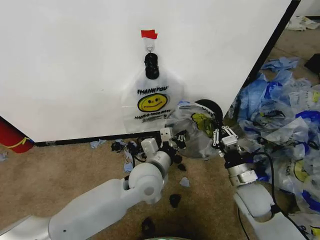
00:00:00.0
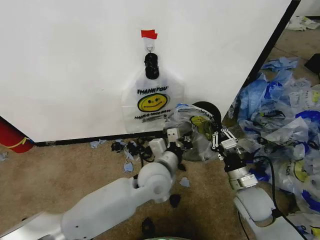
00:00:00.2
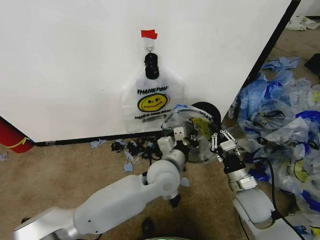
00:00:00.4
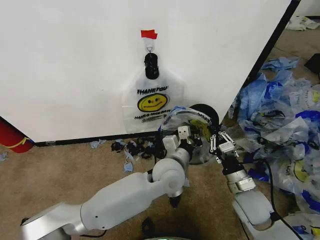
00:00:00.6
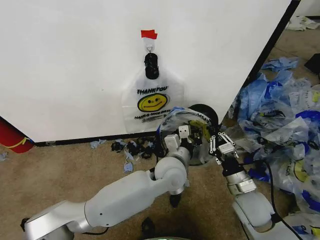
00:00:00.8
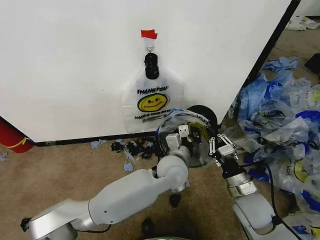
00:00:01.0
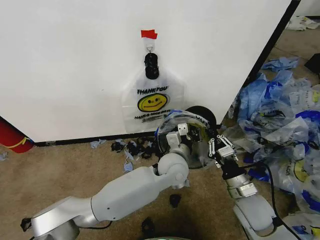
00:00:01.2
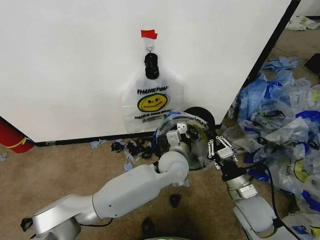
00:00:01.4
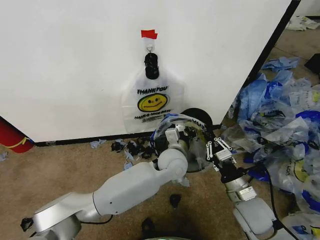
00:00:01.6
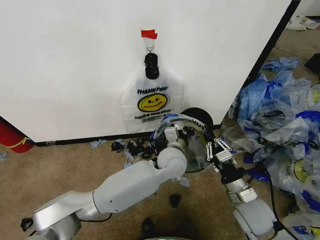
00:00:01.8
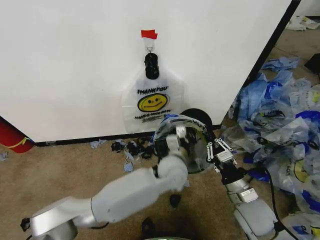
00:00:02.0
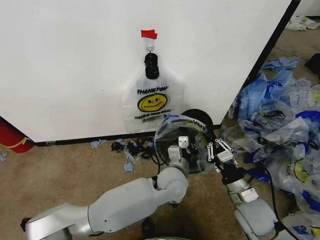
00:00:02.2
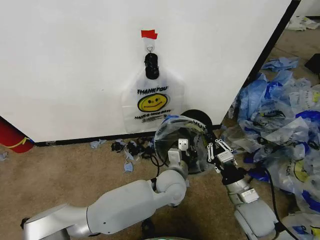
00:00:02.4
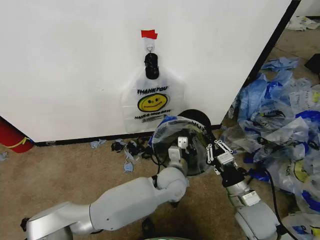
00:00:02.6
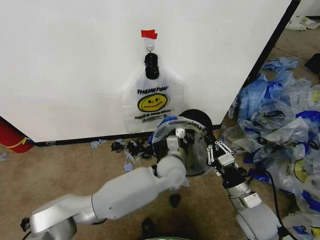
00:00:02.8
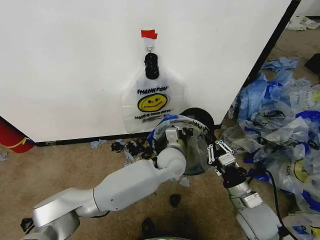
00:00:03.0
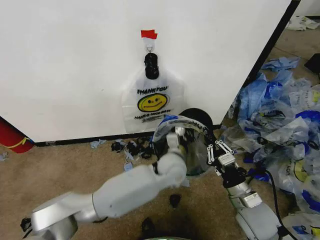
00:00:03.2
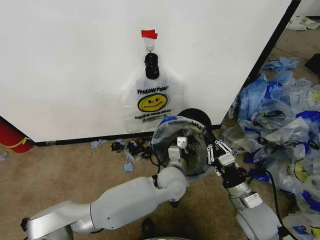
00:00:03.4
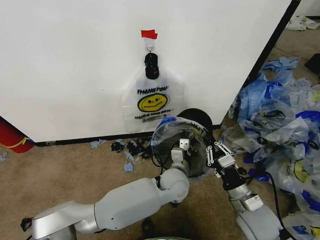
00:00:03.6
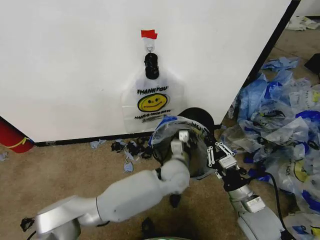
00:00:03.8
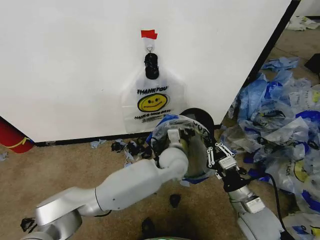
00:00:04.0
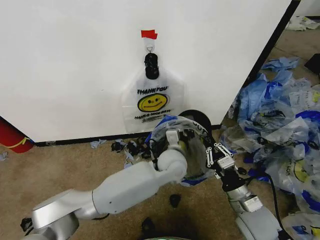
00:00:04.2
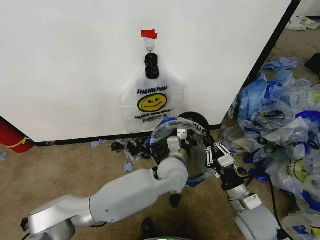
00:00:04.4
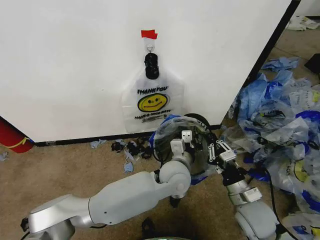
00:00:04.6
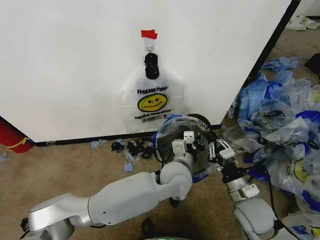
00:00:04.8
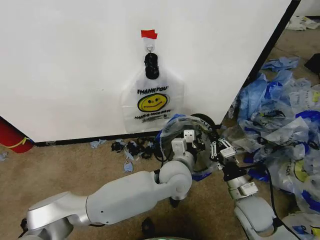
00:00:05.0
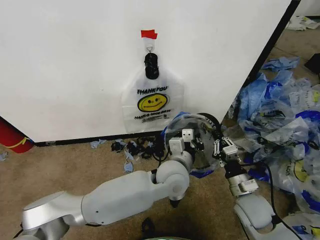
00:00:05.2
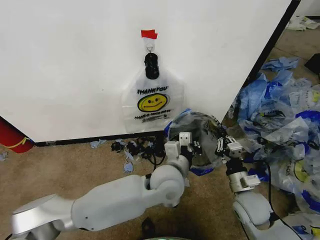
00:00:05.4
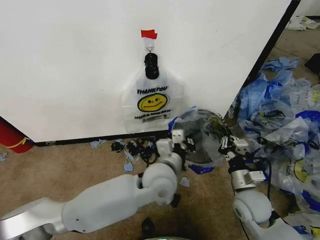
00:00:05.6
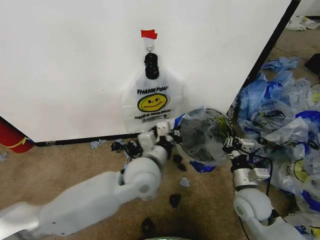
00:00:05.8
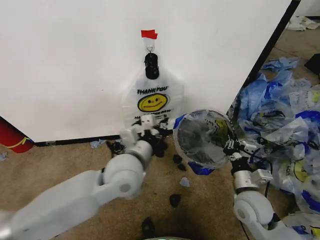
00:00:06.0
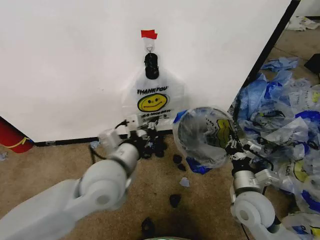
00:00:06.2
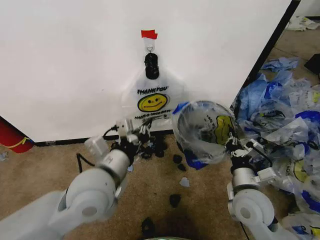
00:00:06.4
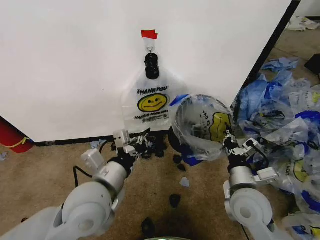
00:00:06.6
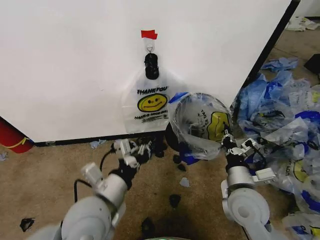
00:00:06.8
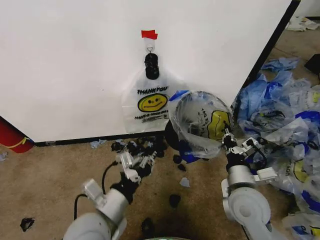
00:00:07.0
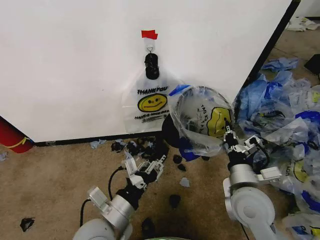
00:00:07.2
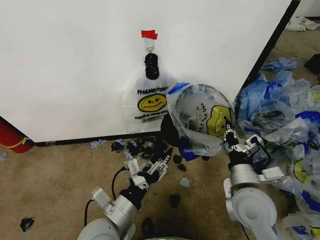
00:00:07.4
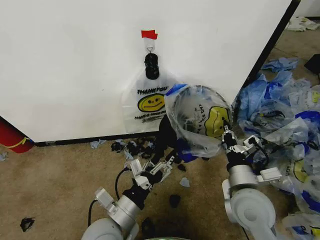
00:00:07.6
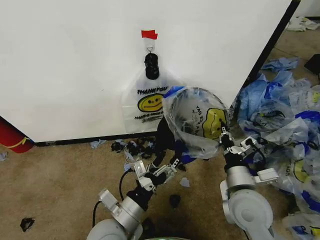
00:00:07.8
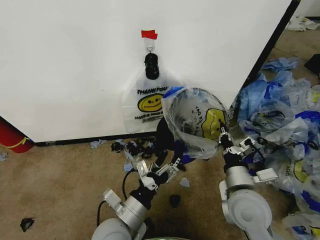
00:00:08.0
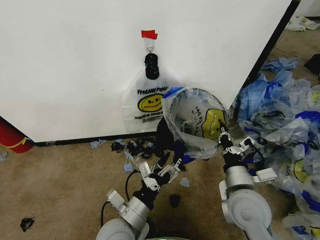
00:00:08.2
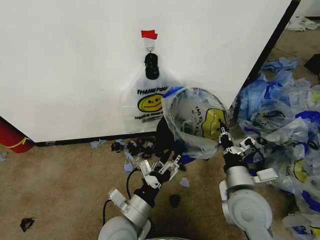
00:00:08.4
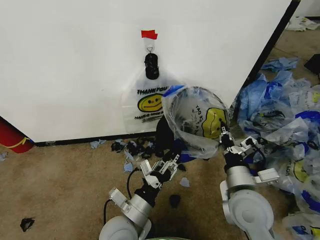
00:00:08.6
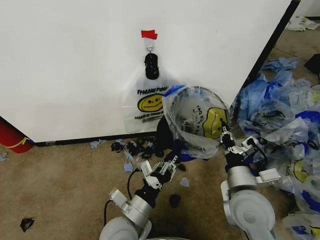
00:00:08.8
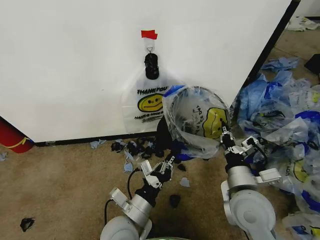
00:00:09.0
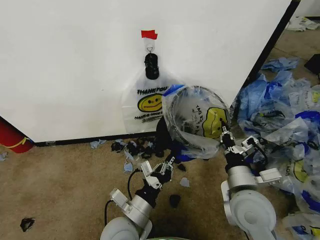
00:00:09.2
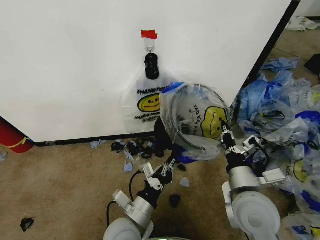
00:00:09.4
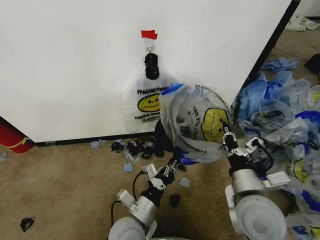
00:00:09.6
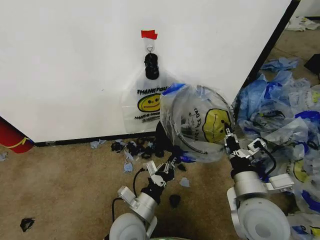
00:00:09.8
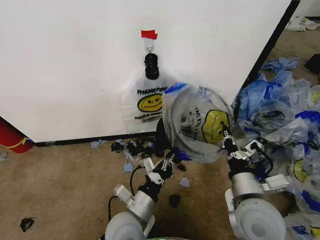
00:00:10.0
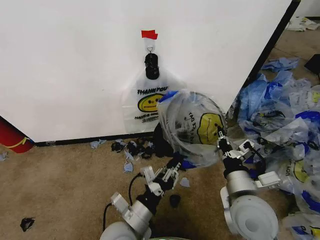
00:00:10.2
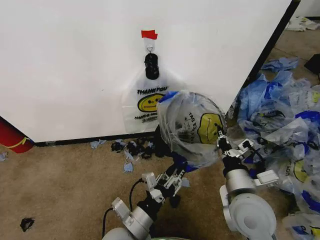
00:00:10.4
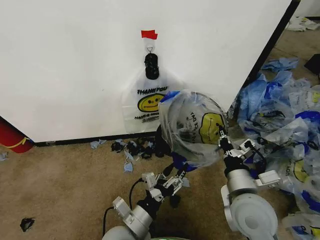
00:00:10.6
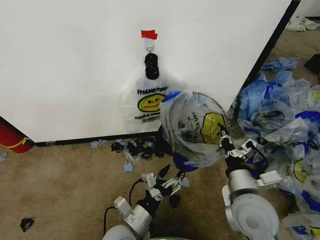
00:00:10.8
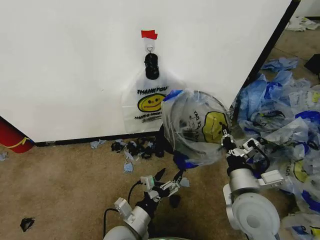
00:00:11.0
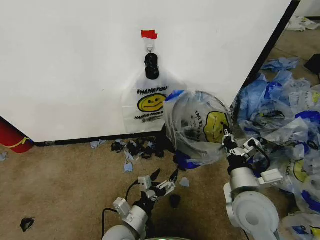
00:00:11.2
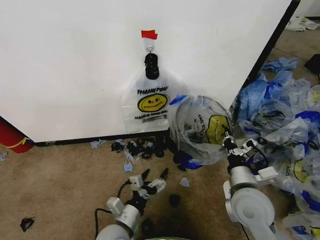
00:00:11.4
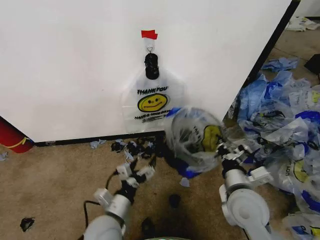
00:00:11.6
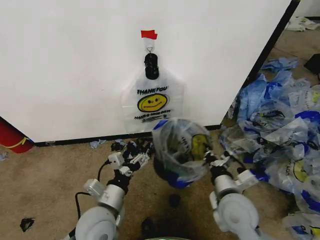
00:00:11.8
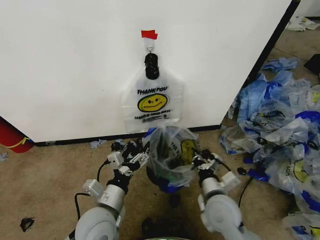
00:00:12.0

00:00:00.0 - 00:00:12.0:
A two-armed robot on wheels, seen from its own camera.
Task of the whole recording: Pick up the garbage bag from the wall and place it over the trash bin.
00:00:00.0 - 00:00:01.6: The left gripper travels to the right and forward by approximately 10 cm.
00:00:04.4 - 00:00:06.0: The left gripper shifts roughly 15 cm to the left and upward.
00:00:06.0 - 00:00:07.6: The left gripper moves backward and downward, some 15 cm, and opens; the right gripper heads upward, covering approximately 10 cm.
00:00:07.6 - 00:00:09.0: The left gripper closes its fingers.
00:00:09.0 - 00:00:10.4: The left gripper opens its fingers.
00:00:10.4 - 00:00:12.0: The right gripper is displaced downward by roughly 10 cm. Meanwhile the left gripper heads to the left, covering some 5 cm, and opens.

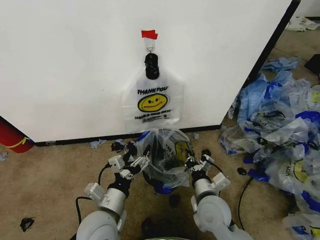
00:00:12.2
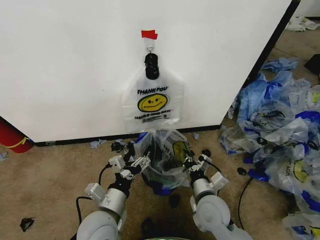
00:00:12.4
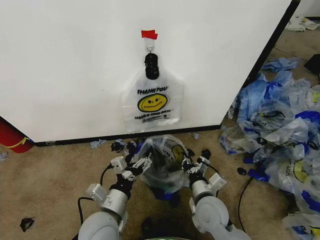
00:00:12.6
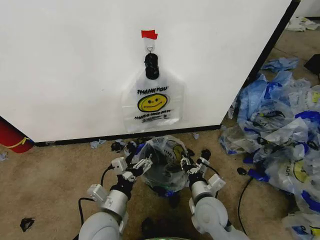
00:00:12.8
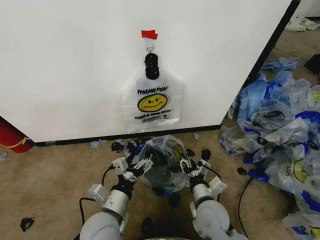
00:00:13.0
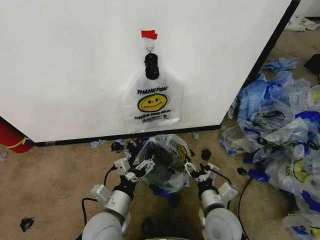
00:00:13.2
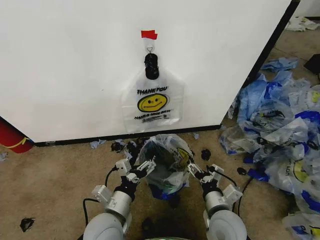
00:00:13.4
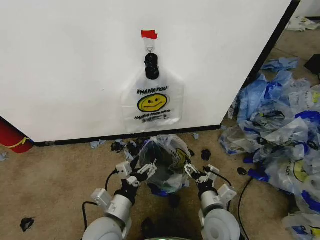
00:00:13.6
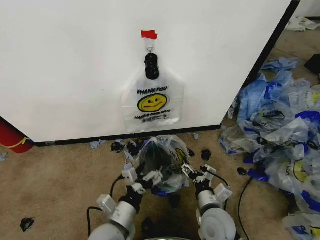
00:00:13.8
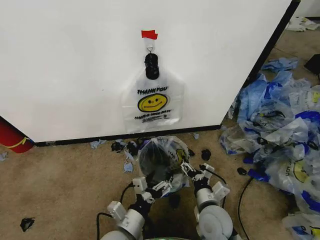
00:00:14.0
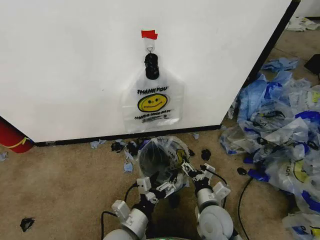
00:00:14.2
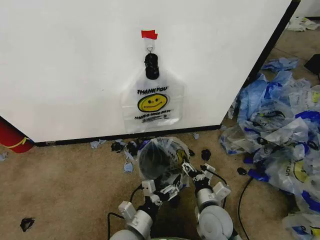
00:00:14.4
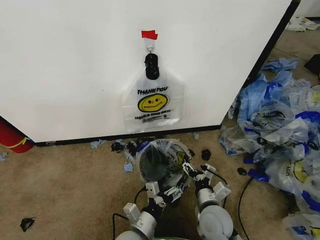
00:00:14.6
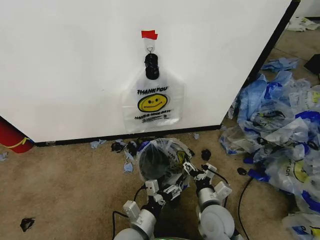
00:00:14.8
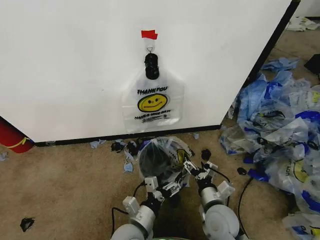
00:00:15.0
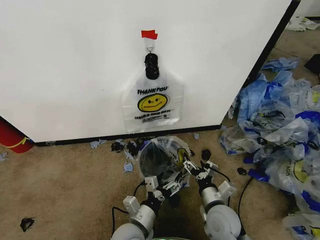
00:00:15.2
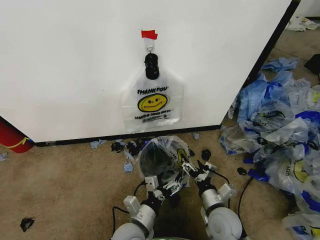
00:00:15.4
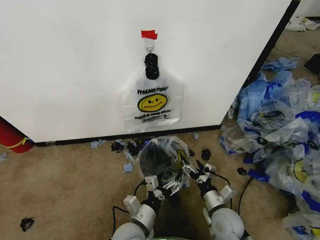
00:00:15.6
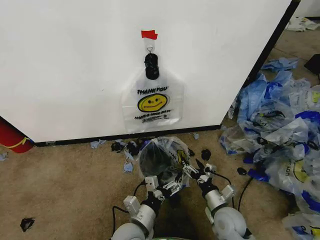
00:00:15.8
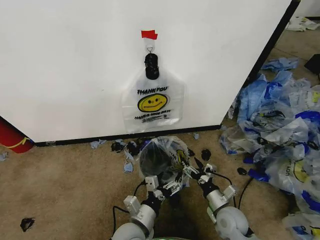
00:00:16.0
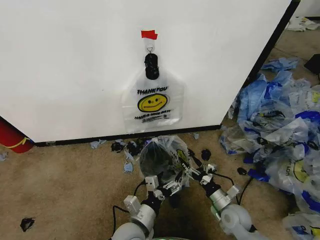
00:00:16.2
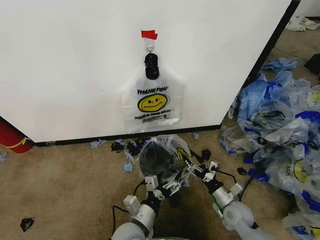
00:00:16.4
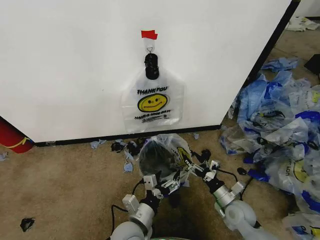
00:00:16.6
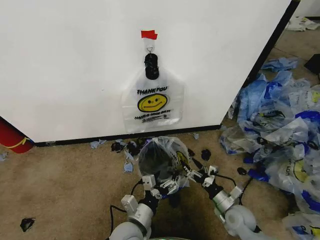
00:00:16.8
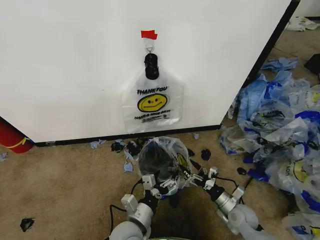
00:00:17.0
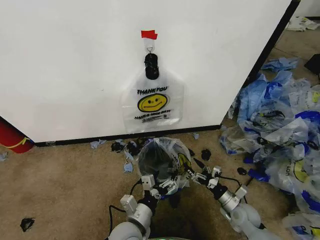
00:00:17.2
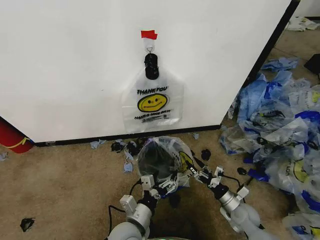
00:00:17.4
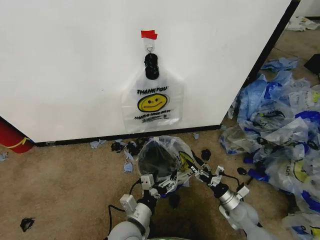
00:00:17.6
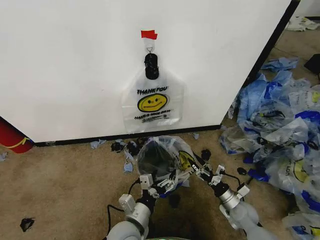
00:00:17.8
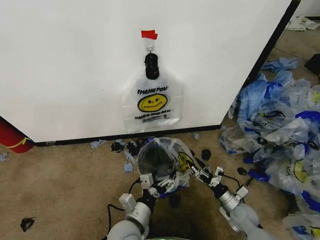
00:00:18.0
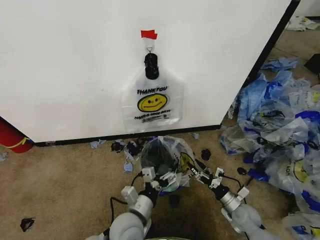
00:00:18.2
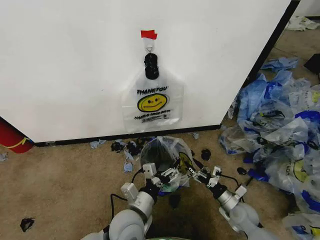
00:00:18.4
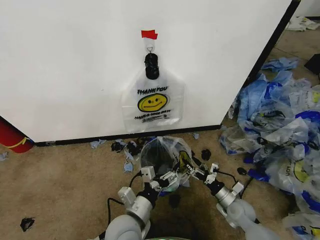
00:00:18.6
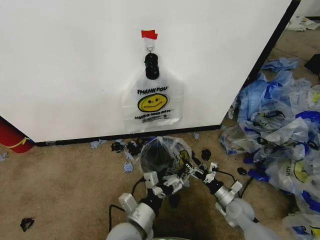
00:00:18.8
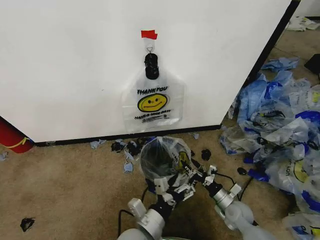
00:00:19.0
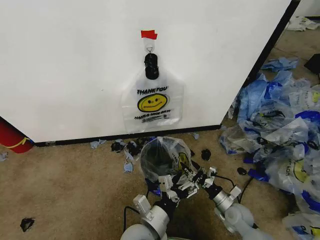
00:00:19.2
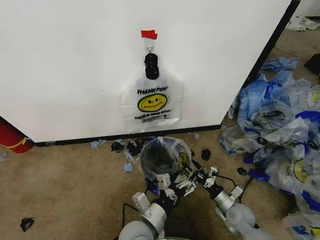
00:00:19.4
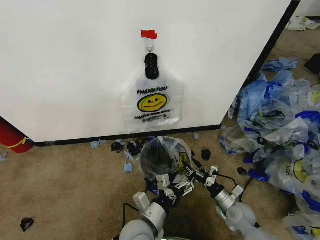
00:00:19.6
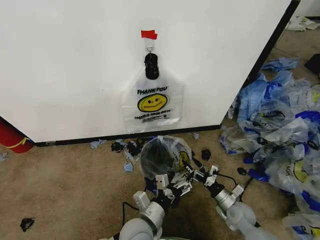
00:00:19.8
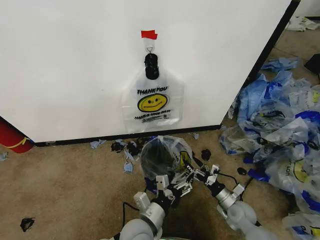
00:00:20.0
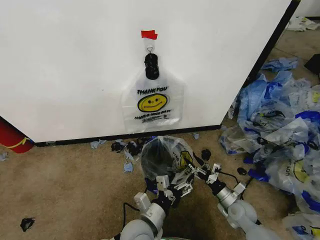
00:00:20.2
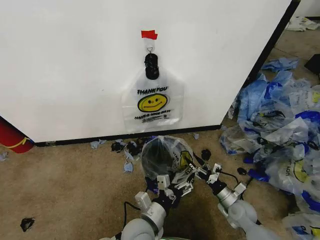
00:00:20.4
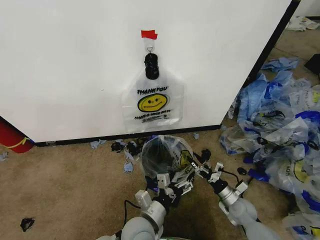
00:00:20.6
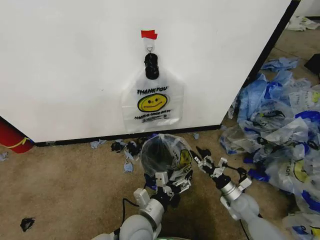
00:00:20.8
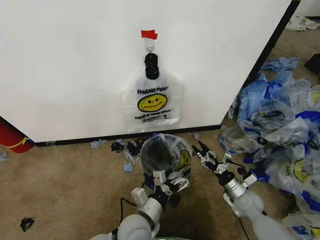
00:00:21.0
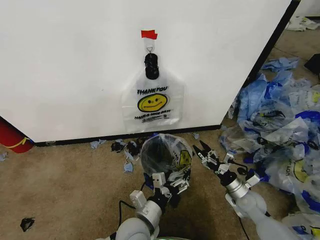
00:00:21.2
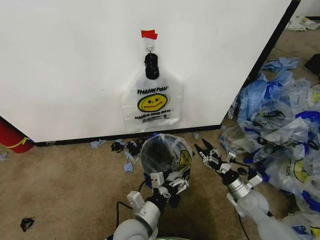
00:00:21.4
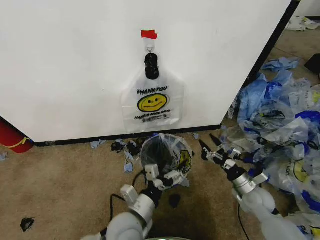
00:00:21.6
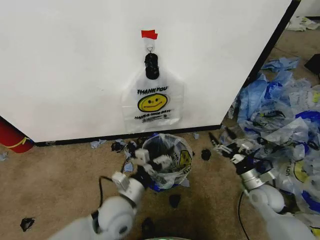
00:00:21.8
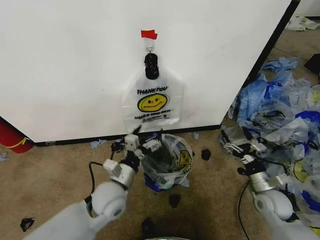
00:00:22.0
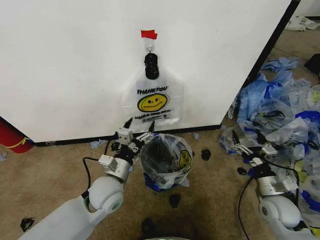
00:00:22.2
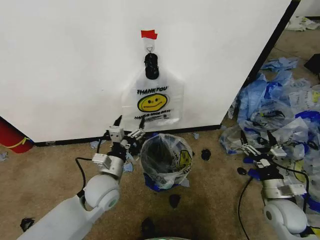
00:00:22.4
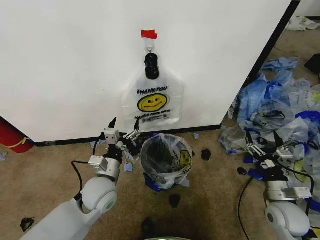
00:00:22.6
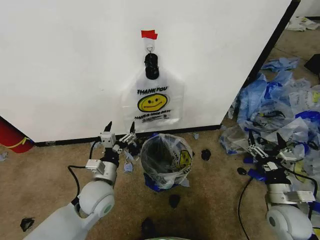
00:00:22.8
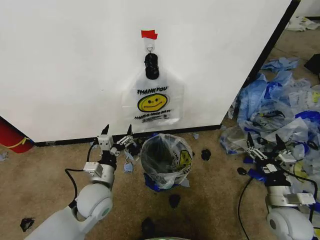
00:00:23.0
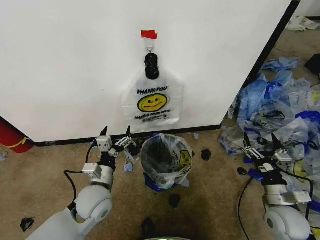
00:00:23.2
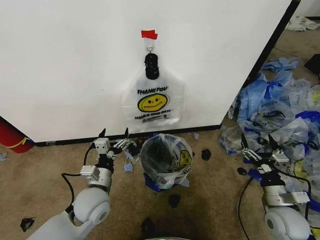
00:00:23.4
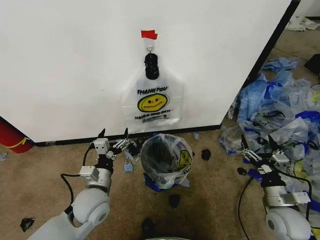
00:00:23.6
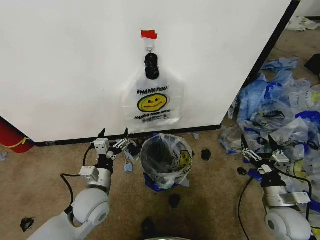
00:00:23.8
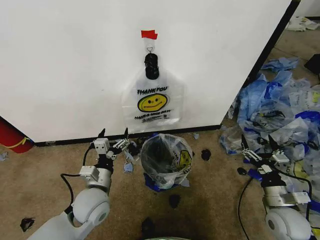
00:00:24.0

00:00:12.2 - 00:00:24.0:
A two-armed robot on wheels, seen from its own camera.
Task of the whole recording: Pick up the garbage bag from the wall and place it over the trash bin.
00:00:12.2 - 00:00:13.6: The right gripper opens up.
00:00:13.6 - 00:00:15.2: The left gripper moves downward and to the right, roughly 10 cm.
00:00:15.2 - 00:00:16.6: The right gripper travels to the right and downward by approximately 10 cm.
00:00:16.6 - 00:00:18.2: The right gripper shifts by about 5 cm.
00:00:18.2 - 00:00:19.6: The grippers stay close to where they were, moving slightly.
00:00:19.6 - 00:00:21.0: The right gripper changes place by some 5 cm.
00:00:21.0 - 00:00:22.6: The right gripper shifts about 10 cm upward, backward and to the right, while the left gripper is displaced to the left, forward and upward by about 15 cm.
00:00:22.6 - 00:00:24.0: The grippers stay close to where they were, moving slightly.
